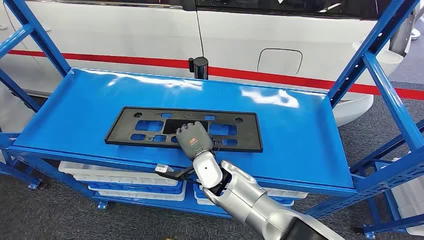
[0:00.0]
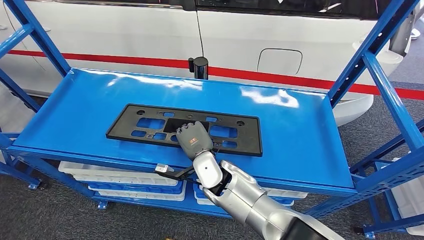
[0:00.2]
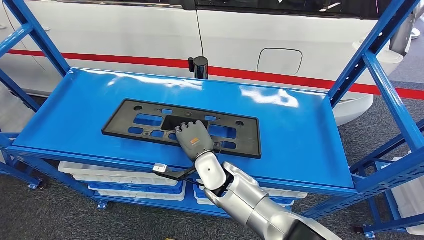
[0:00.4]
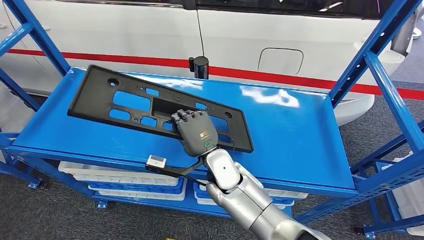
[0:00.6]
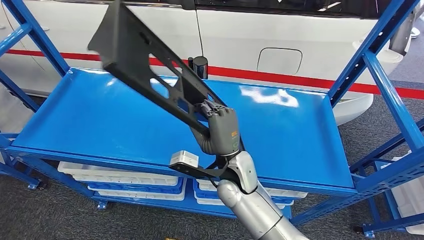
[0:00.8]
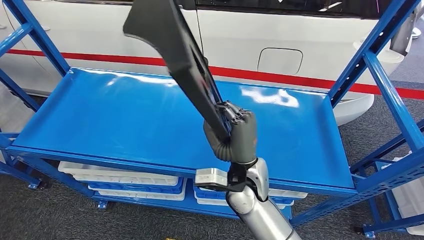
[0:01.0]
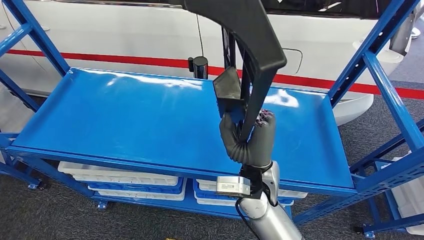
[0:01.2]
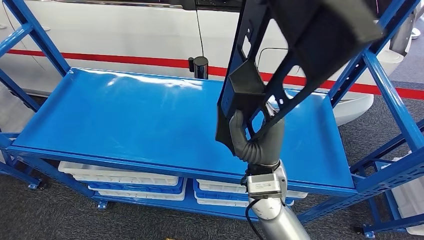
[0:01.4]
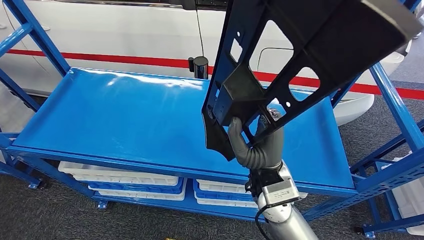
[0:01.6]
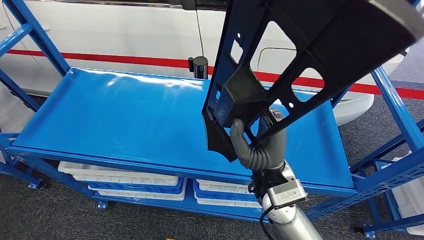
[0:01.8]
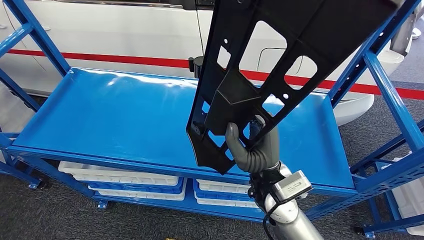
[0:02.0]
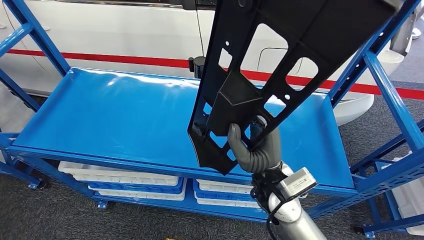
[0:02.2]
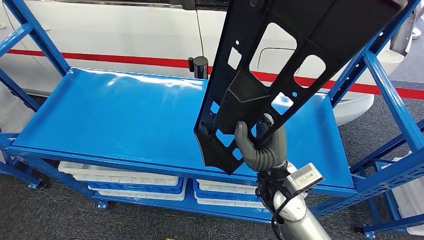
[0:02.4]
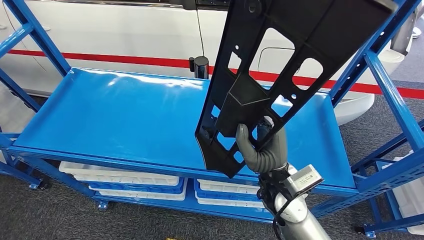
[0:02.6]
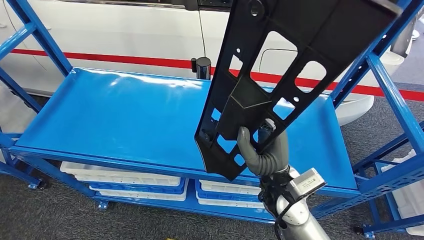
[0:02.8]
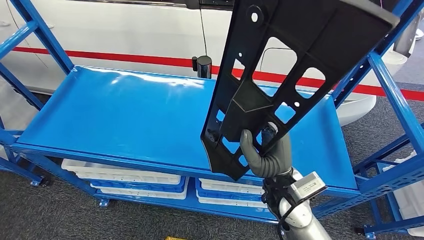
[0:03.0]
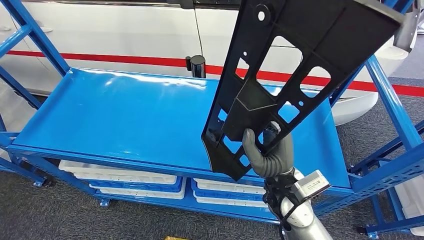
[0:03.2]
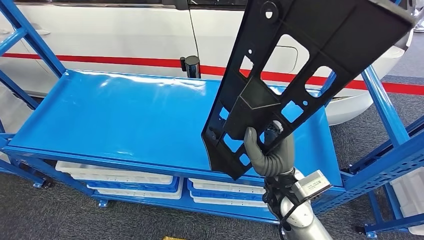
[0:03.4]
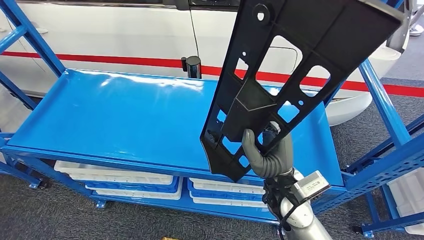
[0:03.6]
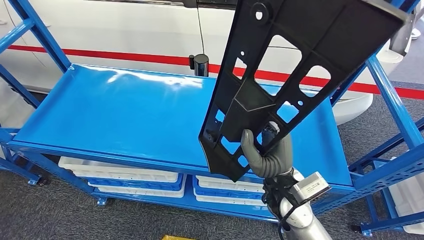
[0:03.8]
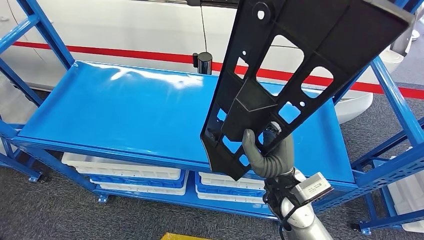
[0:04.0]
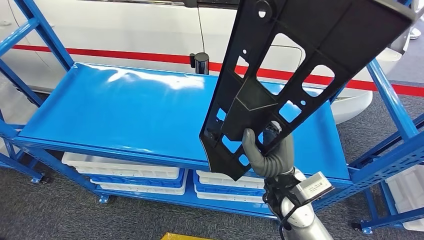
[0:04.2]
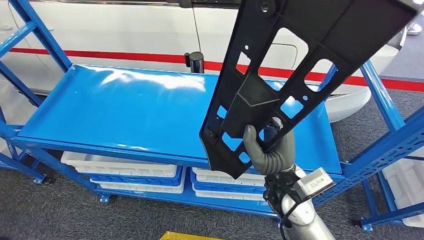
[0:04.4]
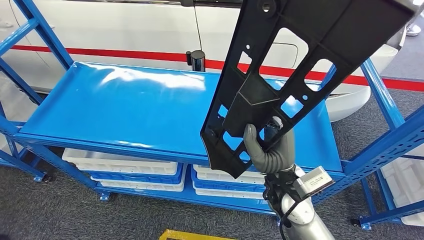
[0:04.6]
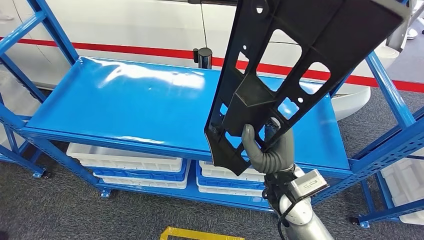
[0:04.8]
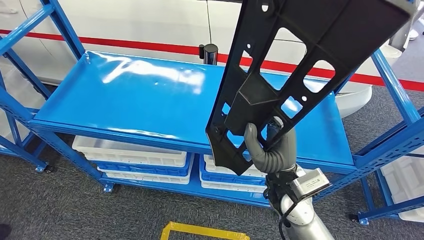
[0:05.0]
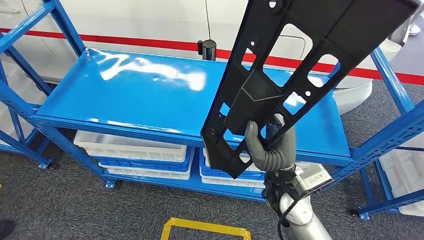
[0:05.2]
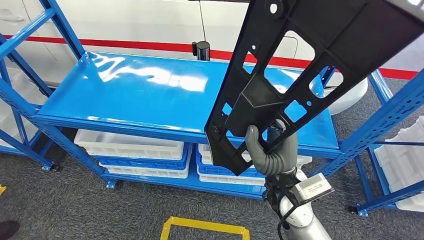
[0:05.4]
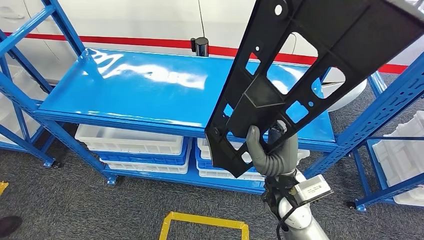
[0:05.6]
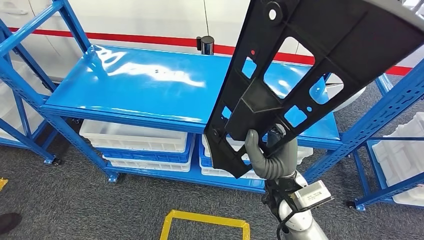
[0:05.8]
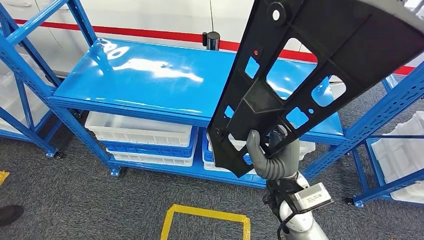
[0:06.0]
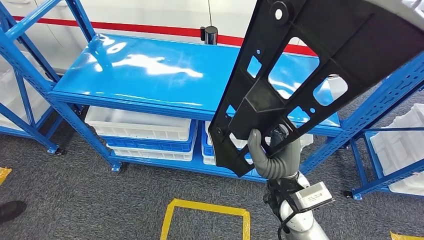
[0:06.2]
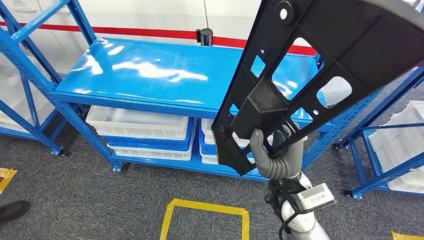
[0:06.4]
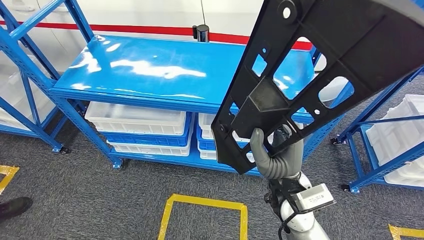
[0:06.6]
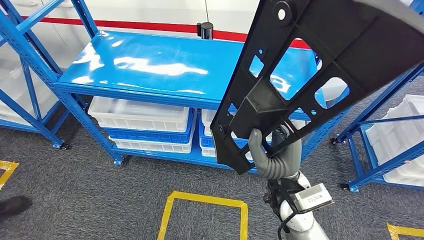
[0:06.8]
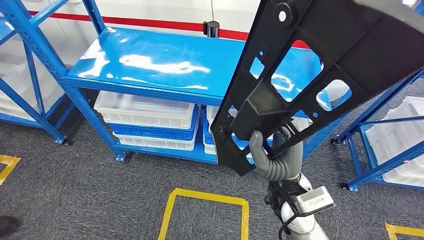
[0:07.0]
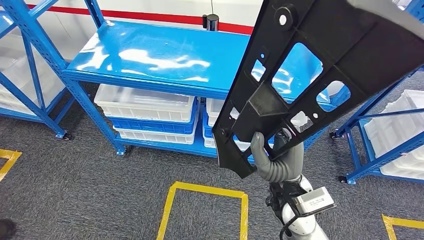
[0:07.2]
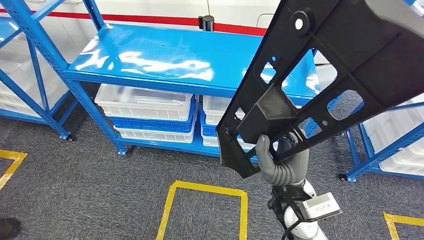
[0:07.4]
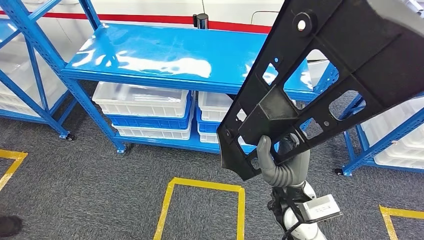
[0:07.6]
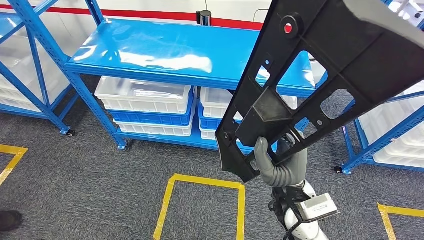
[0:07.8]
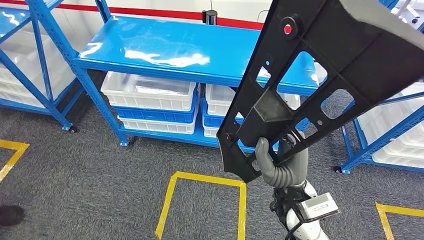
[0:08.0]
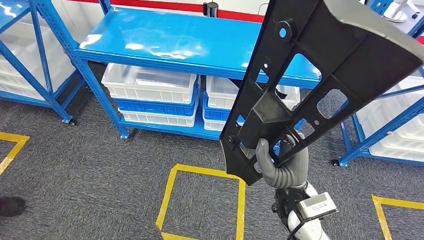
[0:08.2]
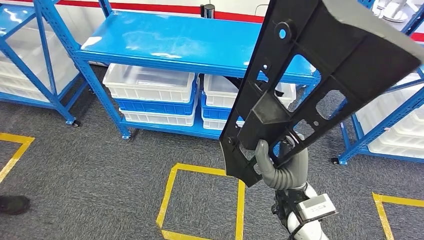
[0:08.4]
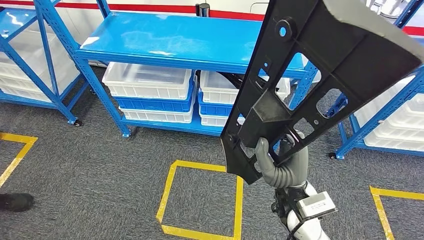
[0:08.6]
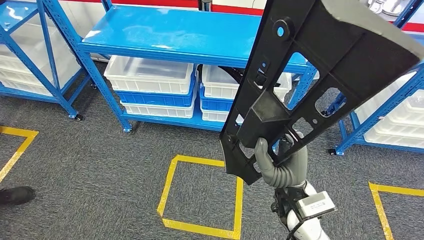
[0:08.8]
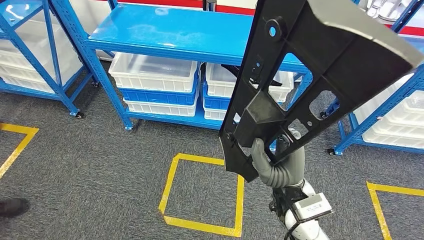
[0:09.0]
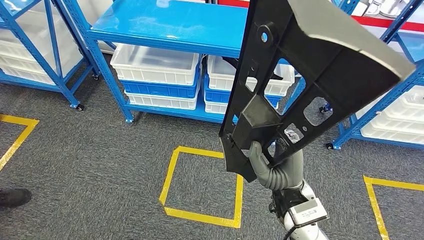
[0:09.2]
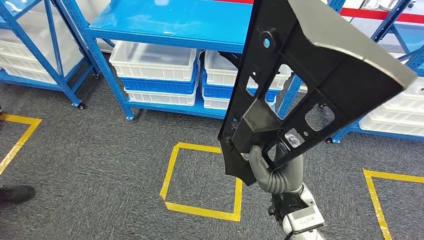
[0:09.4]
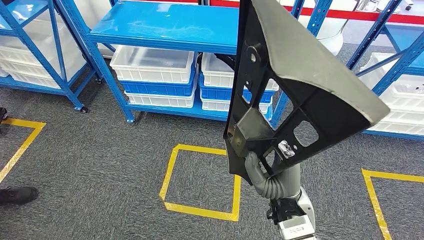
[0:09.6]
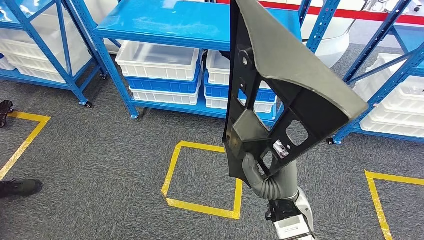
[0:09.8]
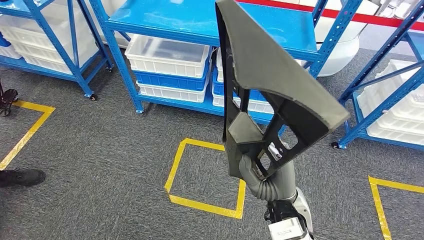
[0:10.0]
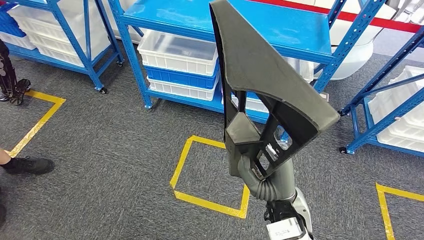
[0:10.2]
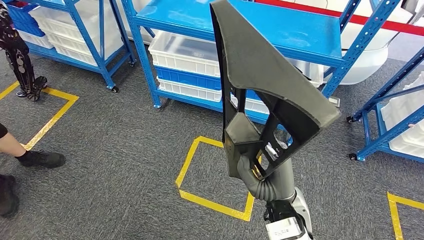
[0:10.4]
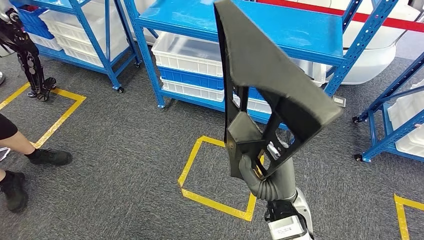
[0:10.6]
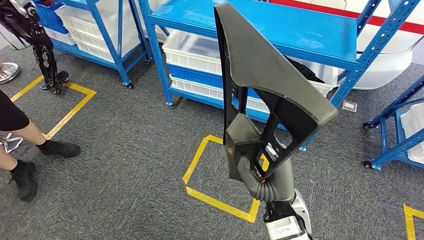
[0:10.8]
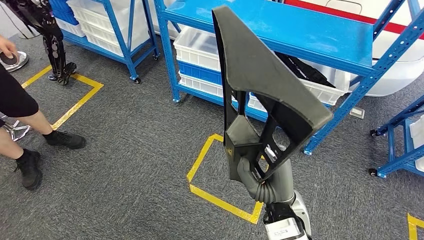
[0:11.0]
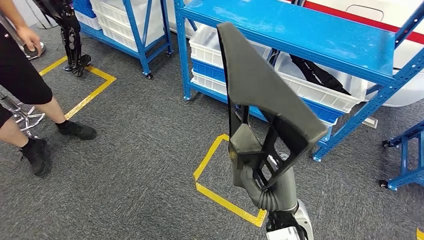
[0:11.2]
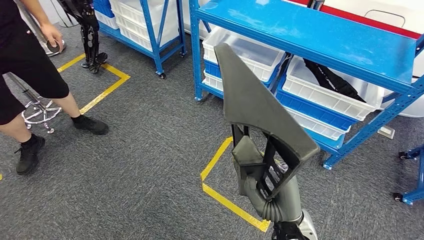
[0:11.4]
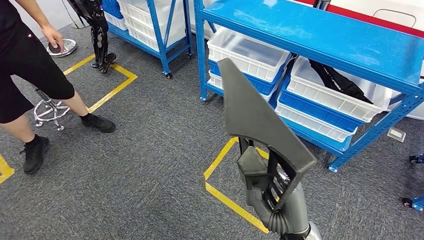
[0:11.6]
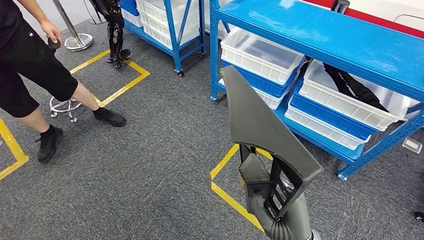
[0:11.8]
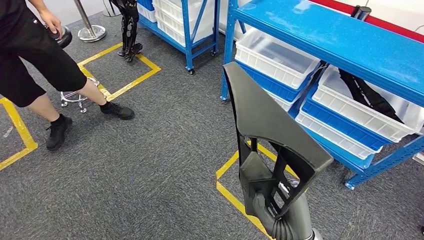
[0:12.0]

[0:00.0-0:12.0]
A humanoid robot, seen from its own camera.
Step, 0:00.0 to 0:10.2: Pick up the large material from the shelf.

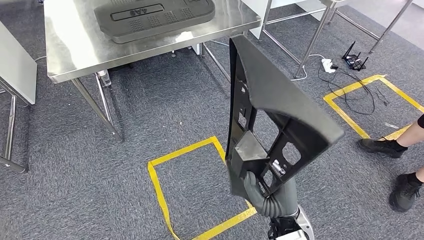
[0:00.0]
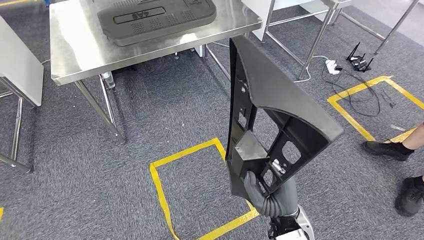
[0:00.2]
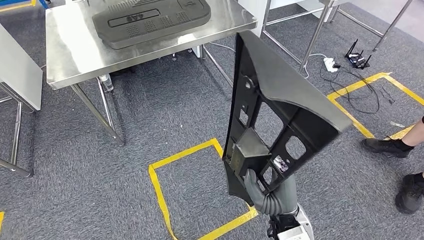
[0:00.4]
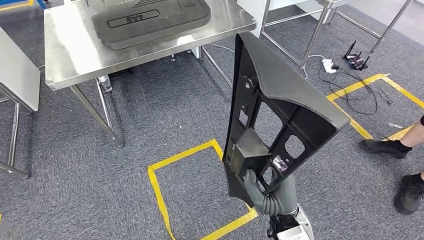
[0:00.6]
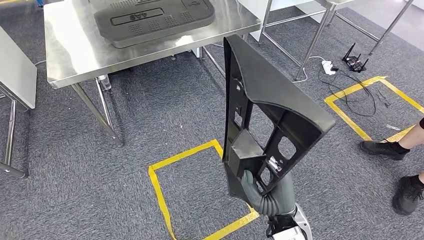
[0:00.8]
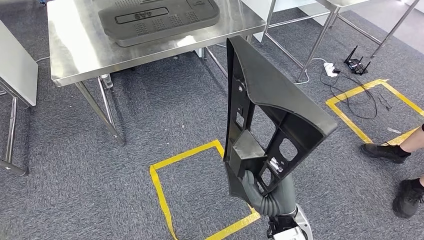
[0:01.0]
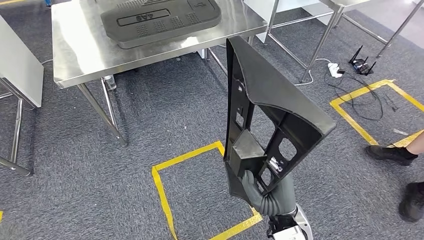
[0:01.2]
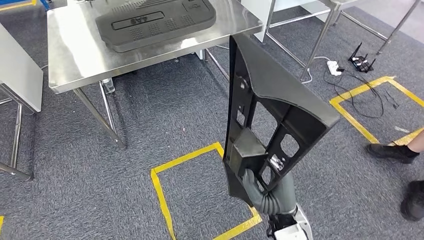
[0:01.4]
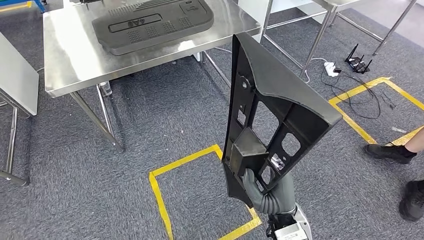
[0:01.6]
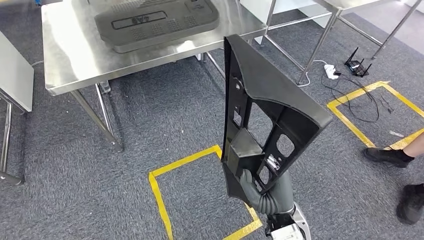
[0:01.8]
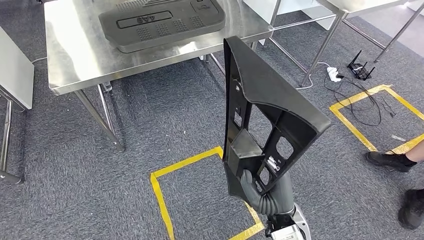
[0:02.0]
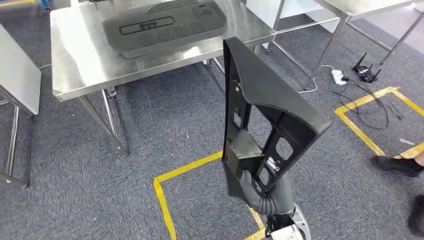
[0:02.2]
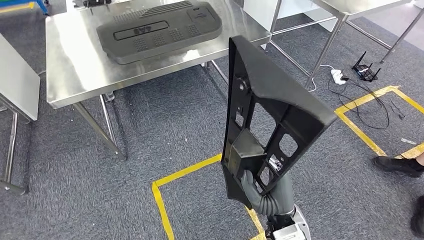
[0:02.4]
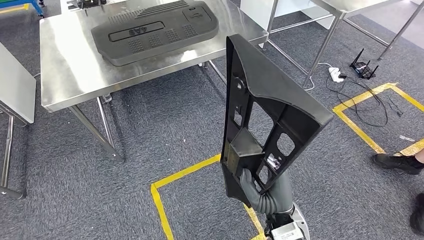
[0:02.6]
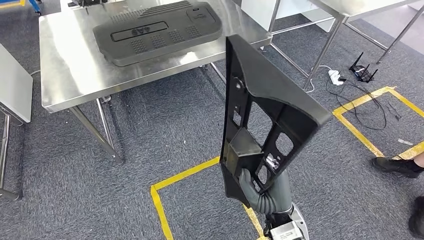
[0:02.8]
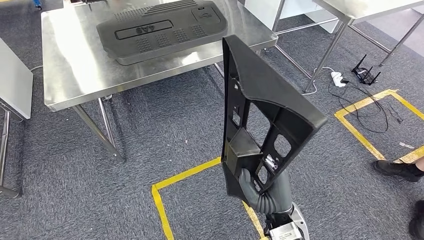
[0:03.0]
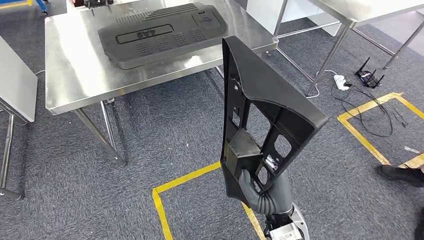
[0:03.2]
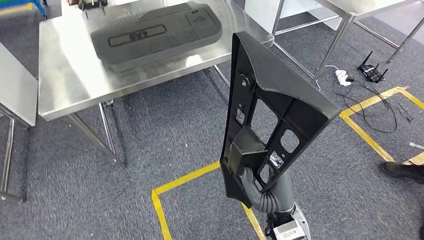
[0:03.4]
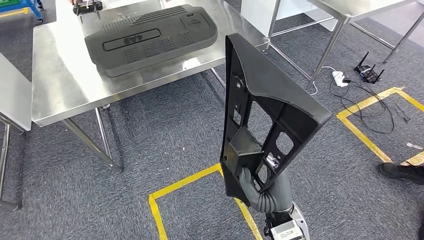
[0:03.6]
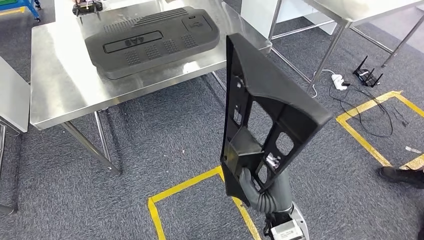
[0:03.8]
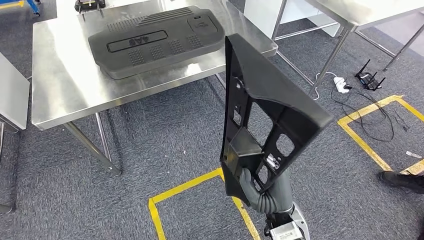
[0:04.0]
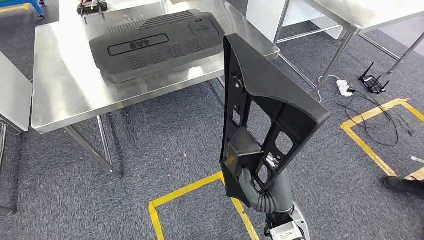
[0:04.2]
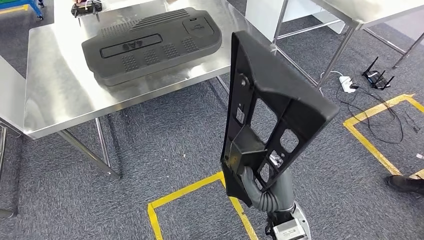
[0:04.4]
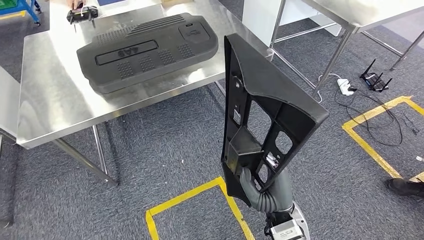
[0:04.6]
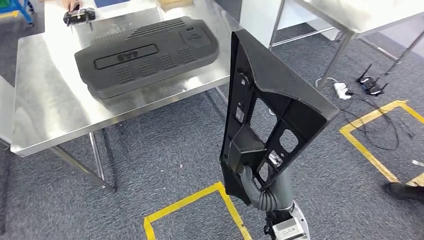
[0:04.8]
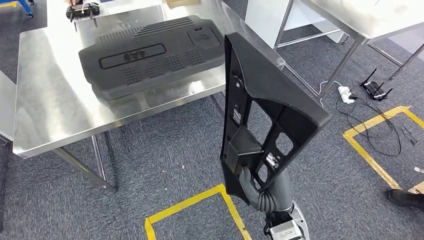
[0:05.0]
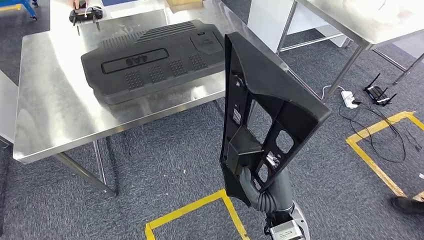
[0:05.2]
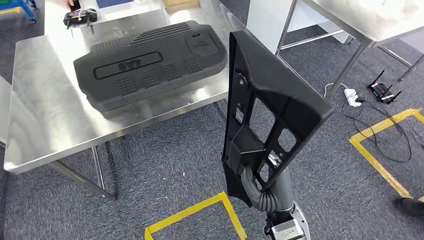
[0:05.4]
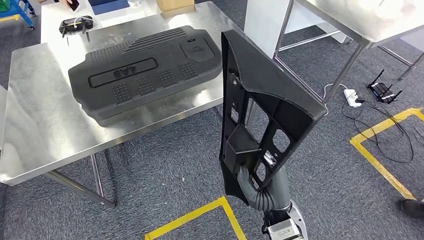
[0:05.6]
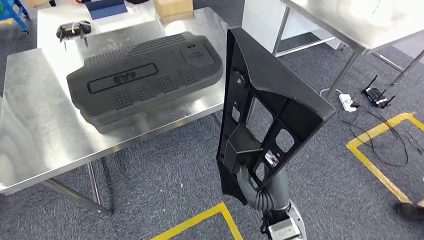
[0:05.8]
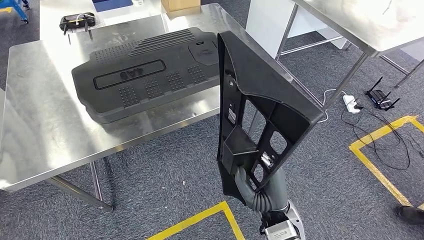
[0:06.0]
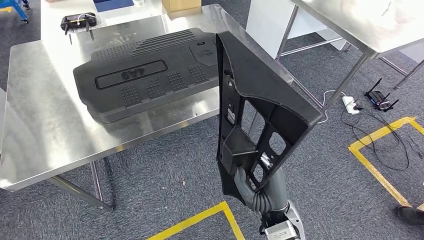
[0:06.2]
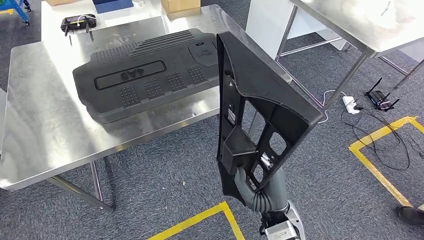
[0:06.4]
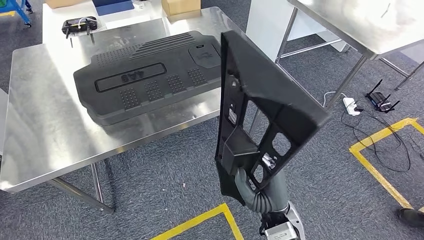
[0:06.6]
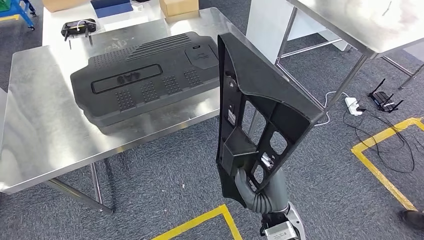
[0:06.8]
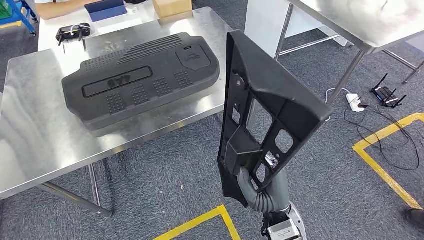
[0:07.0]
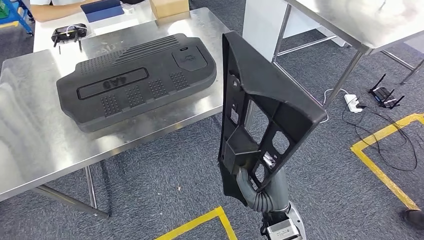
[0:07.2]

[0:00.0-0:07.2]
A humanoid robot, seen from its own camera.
Step, 0:00.0 to 0:06.6: Move the large material to the workbench.
